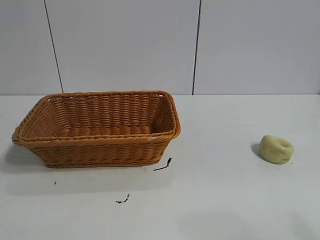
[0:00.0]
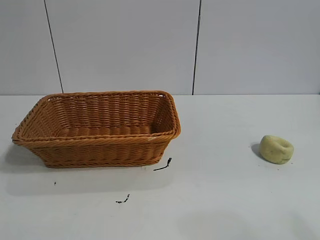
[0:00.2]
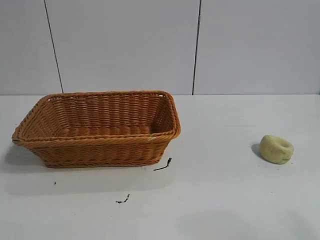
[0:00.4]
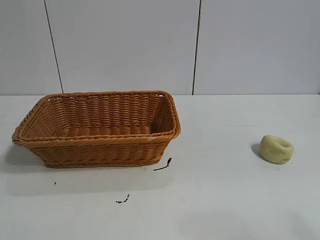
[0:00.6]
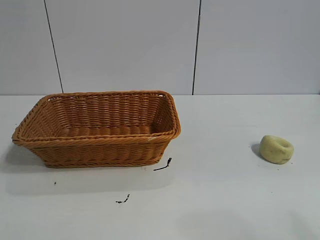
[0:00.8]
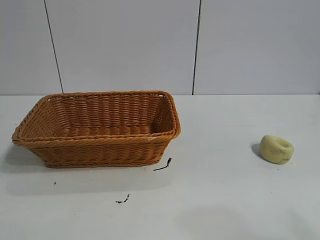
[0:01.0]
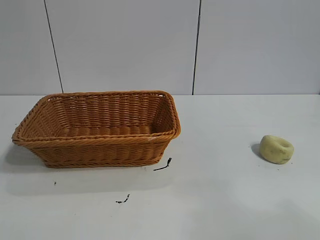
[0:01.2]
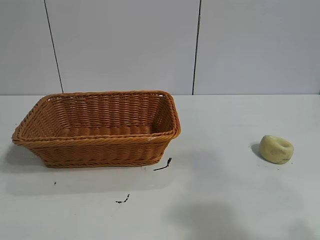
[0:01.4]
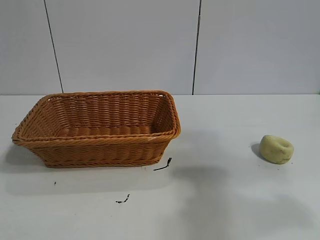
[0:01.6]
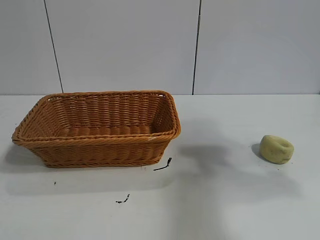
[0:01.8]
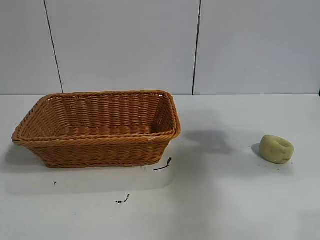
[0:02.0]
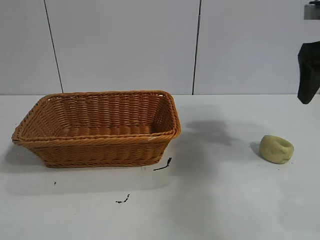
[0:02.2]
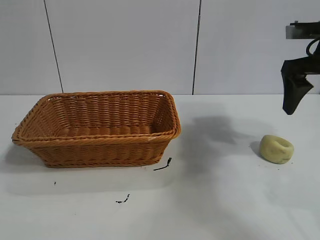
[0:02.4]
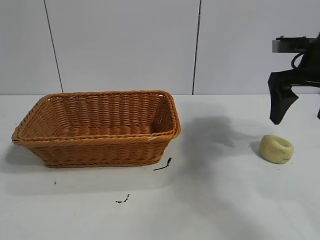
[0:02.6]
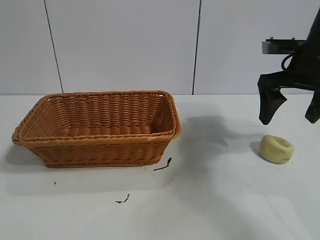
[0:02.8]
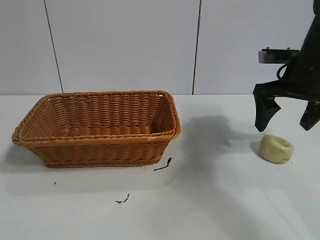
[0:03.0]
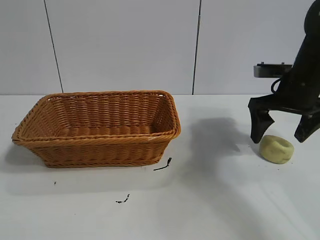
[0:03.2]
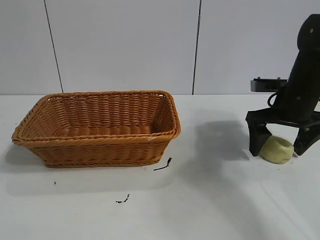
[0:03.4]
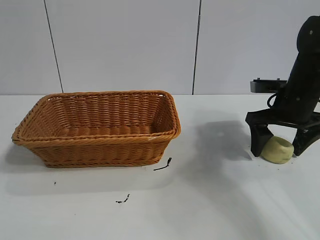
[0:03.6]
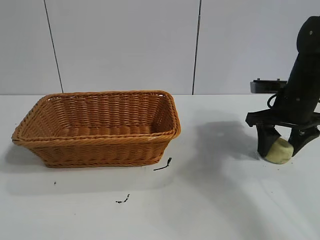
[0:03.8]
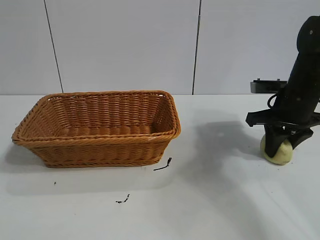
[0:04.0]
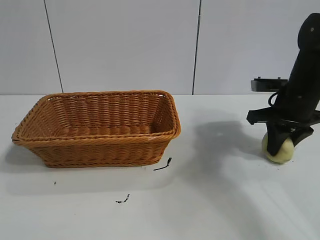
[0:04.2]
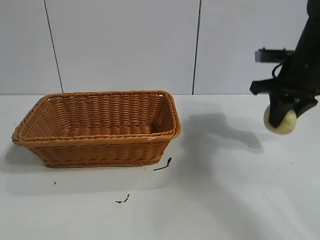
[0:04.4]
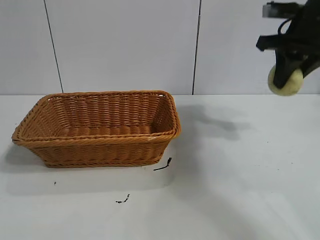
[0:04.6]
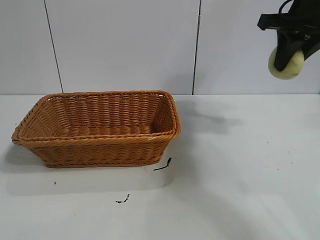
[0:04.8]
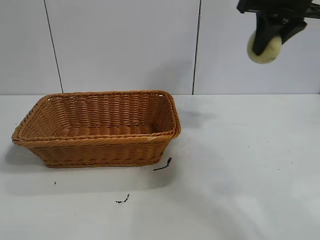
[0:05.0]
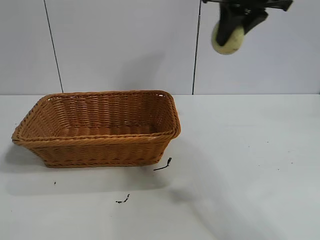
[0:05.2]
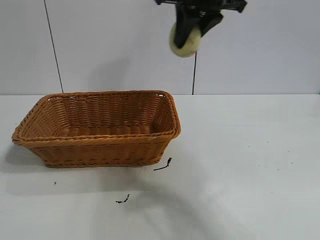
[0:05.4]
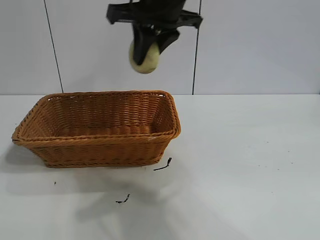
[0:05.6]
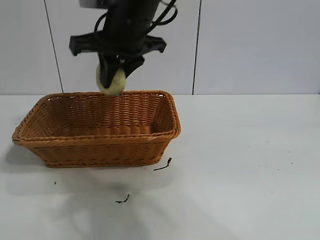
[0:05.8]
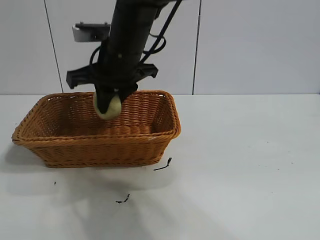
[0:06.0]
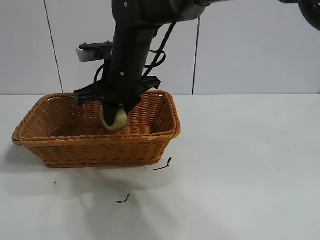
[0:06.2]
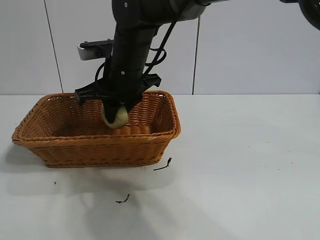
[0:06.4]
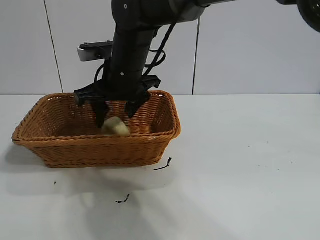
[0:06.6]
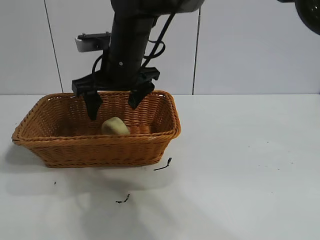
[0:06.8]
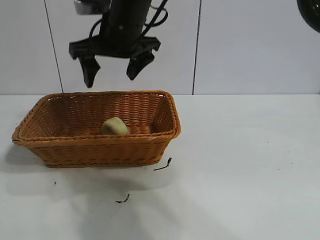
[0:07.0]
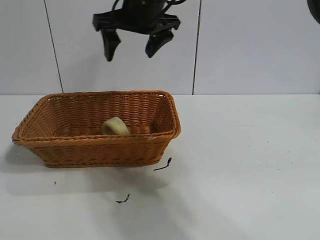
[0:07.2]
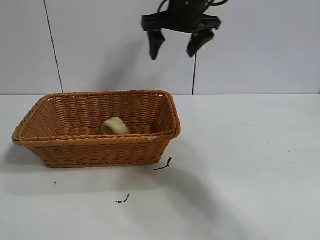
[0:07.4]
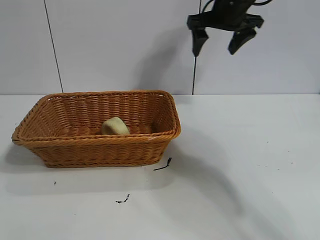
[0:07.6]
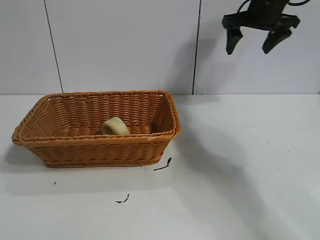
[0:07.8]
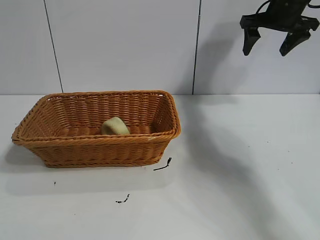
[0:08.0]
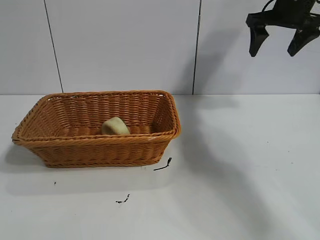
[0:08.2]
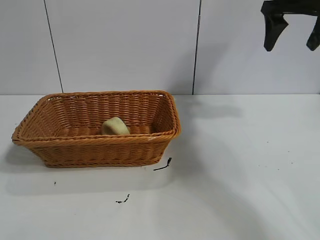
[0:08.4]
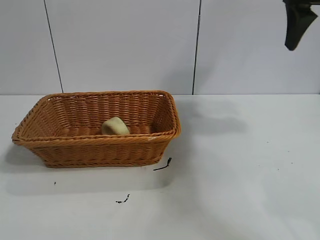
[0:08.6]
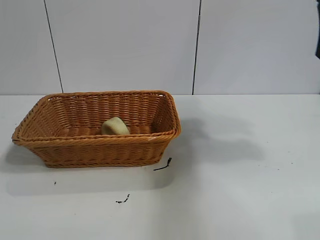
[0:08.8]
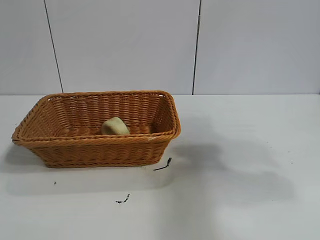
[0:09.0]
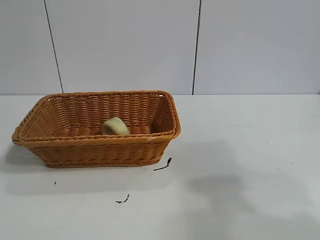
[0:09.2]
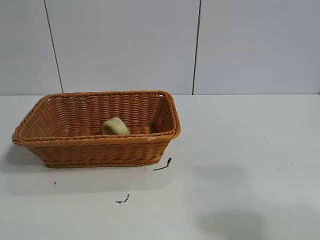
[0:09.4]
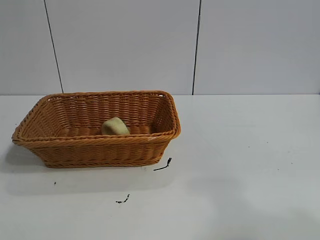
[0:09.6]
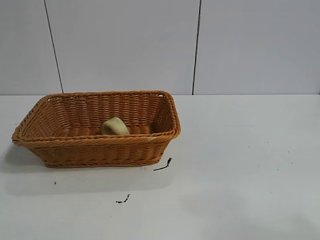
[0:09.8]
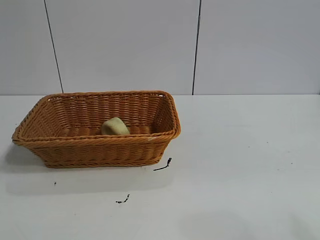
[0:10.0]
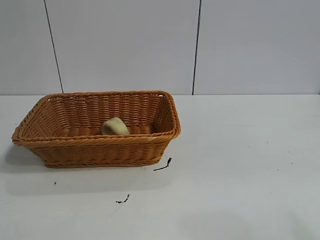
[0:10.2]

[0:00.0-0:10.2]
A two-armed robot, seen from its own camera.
Task of the whole recording: pick up the egg yolk pastry and put it into the basket.
Step, 0:01.0 to 0:04.0: Grasp egg yolk pastry with right gripper.
Step, 0:04.2 to 0:06.6: Place the egg yolk pastry in the basket with right gripper.

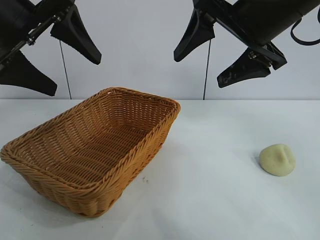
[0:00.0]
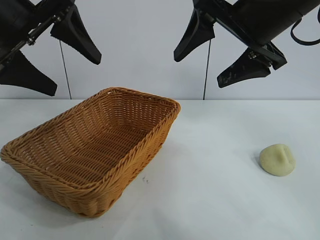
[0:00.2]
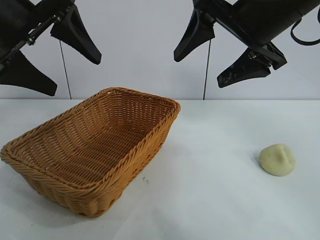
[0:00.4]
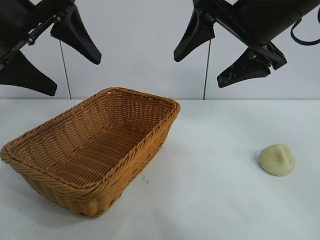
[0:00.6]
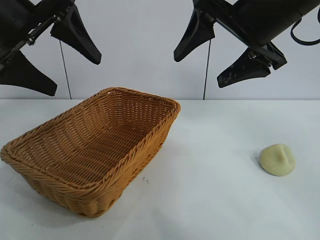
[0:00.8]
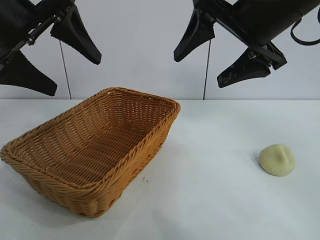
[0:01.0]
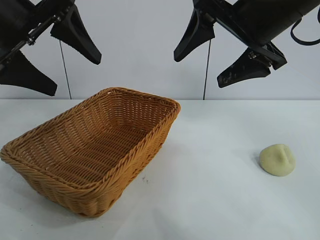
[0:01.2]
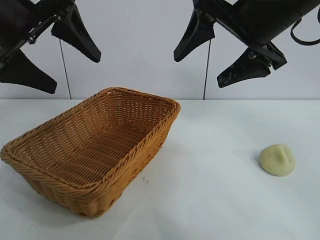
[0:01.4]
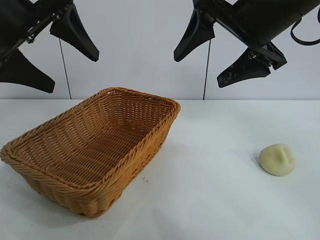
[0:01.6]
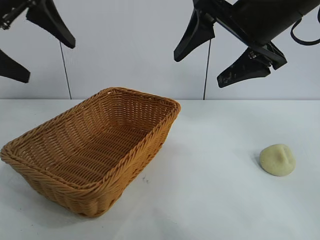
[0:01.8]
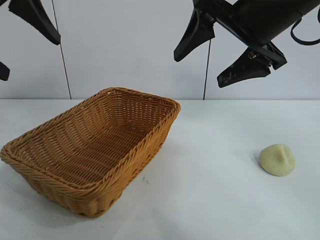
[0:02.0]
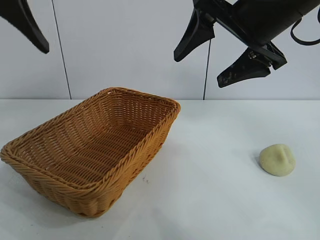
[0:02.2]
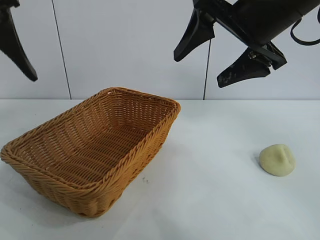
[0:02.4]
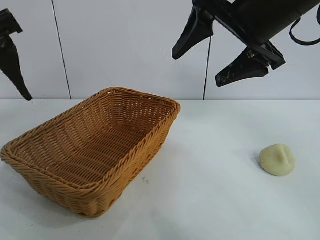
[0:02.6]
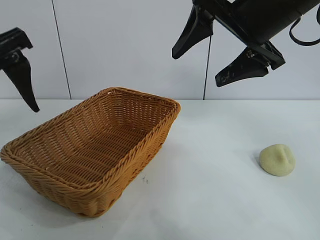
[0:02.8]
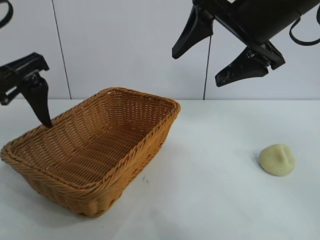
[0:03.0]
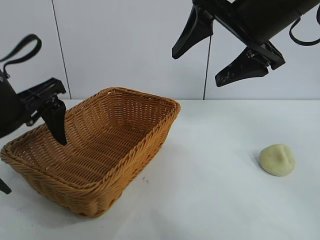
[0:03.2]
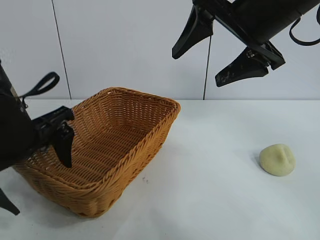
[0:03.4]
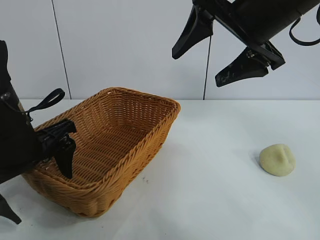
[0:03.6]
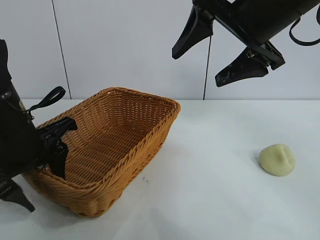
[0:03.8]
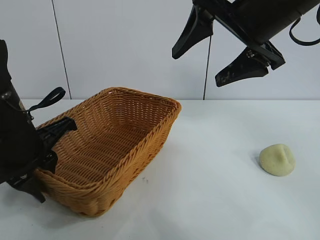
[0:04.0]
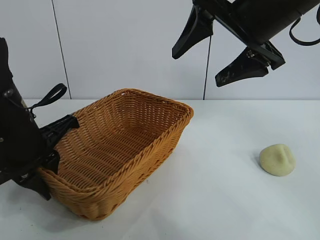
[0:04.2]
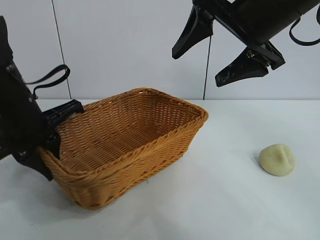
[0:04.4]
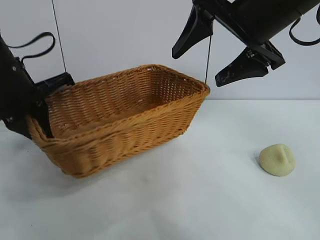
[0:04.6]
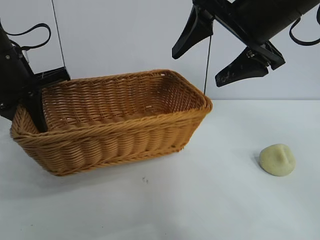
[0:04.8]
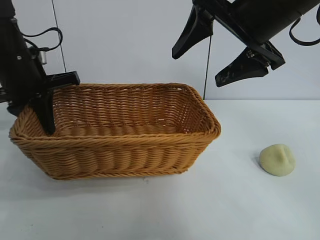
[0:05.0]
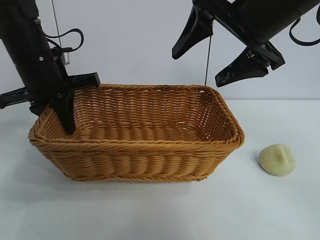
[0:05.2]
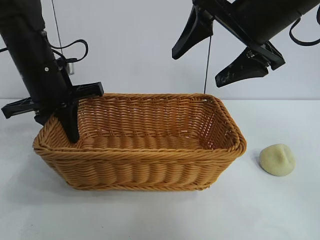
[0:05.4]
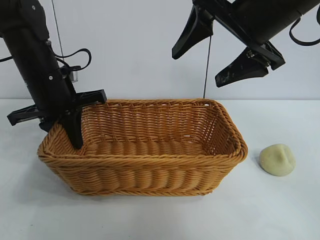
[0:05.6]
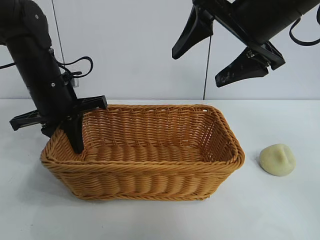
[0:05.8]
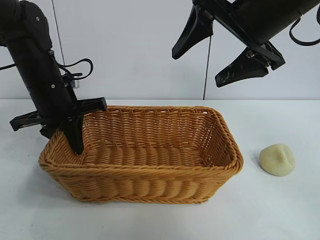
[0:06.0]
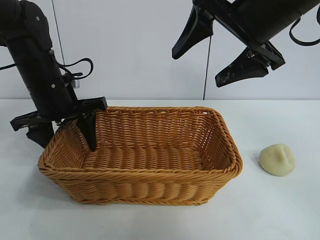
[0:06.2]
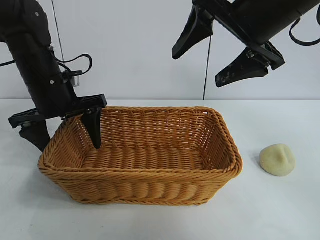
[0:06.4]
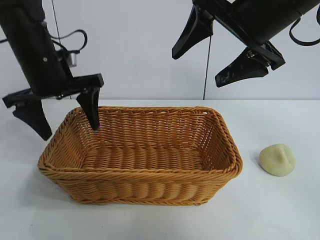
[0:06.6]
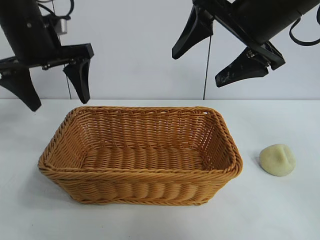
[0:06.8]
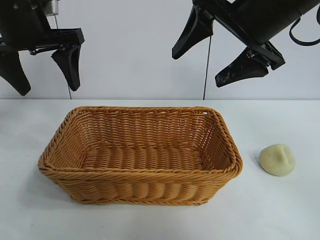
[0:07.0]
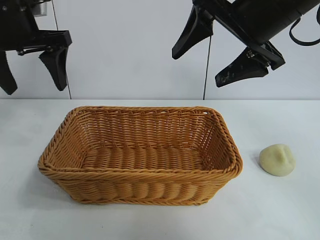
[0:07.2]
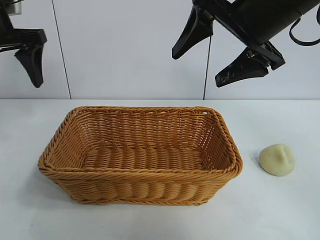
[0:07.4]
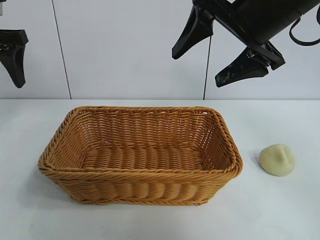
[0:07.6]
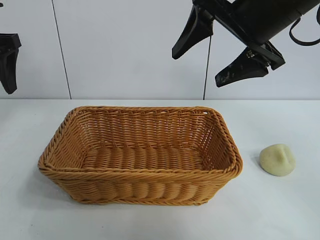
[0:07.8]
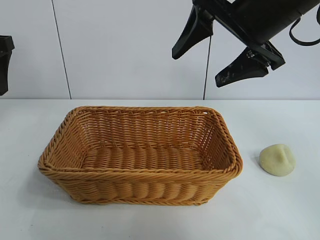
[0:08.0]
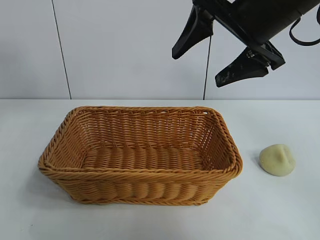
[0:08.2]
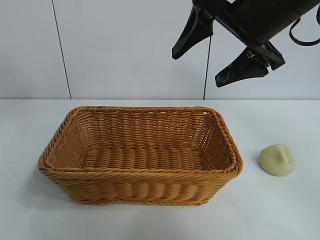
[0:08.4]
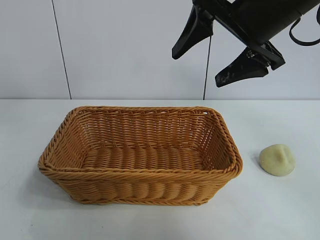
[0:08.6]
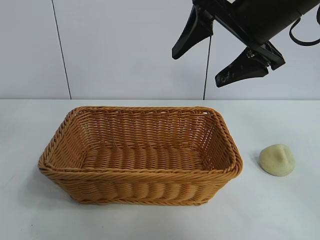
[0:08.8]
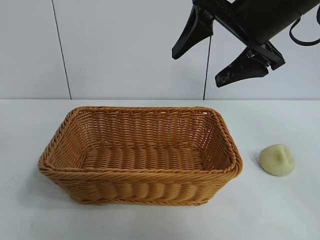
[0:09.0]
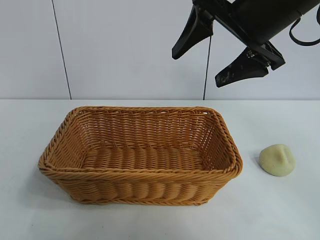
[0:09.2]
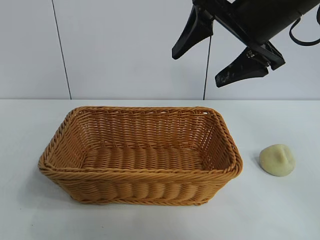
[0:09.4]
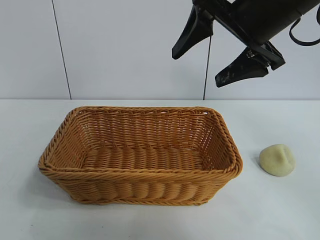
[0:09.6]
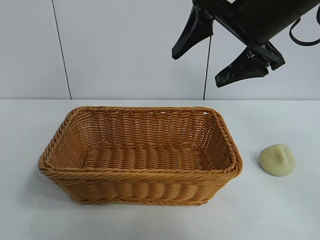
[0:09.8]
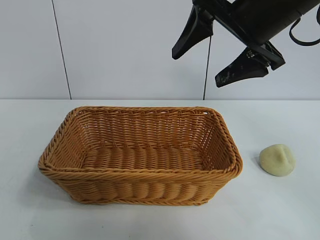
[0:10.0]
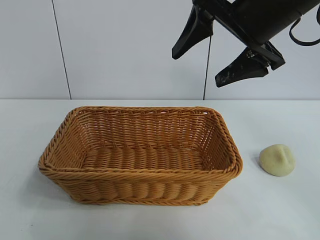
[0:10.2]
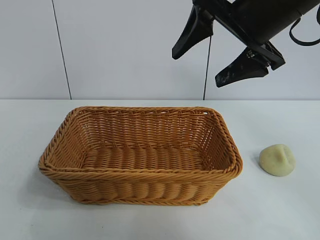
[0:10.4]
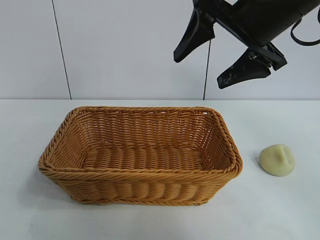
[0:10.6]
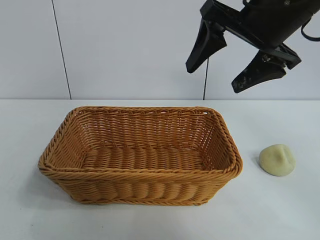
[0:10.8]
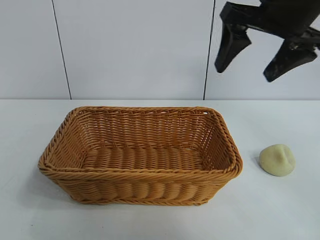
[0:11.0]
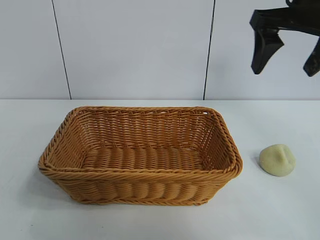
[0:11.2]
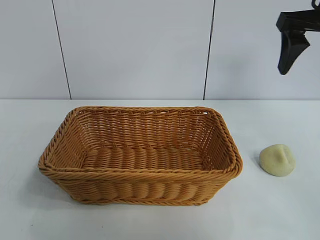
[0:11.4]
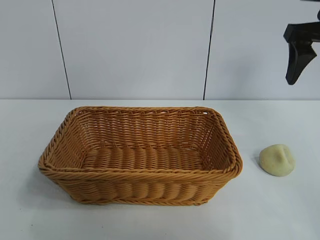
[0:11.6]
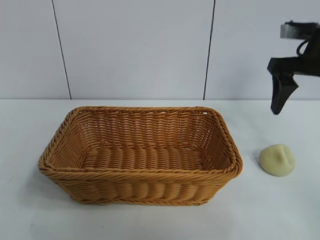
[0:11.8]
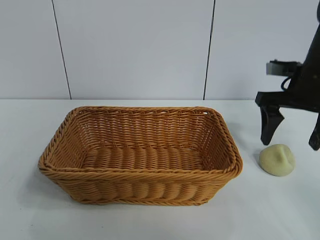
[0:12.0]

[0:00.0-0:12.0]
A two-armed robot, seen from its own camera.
Task of the whole recording: pick up the egg yolk pastry and put it into the basket.
Step, 0:01.4 to 0:04.0: Grasp the basket with left gripper.
Step, 0:04.2 to 0:06.0: Place the basket in the center of view with left gripper.
